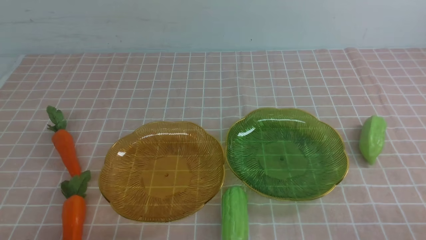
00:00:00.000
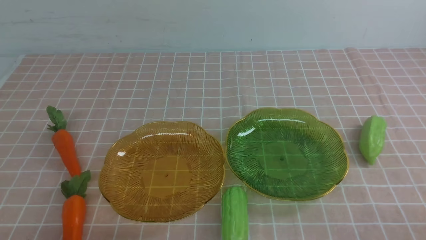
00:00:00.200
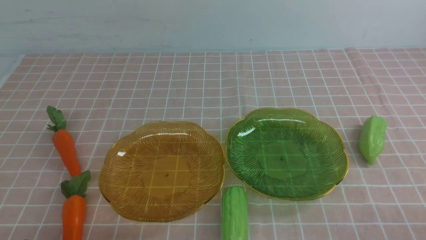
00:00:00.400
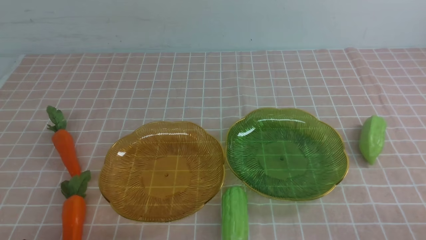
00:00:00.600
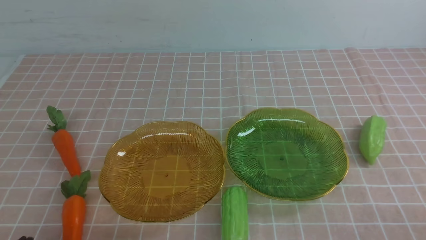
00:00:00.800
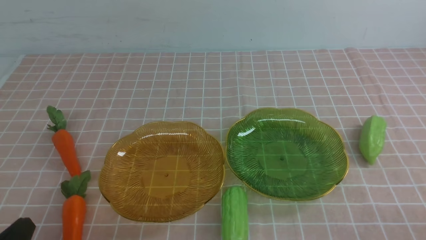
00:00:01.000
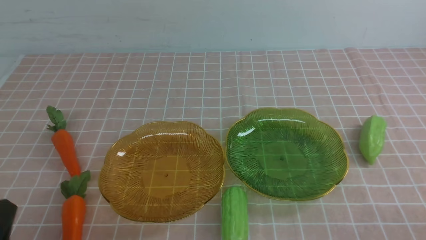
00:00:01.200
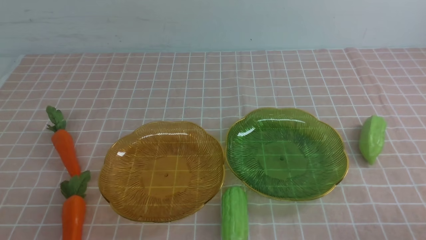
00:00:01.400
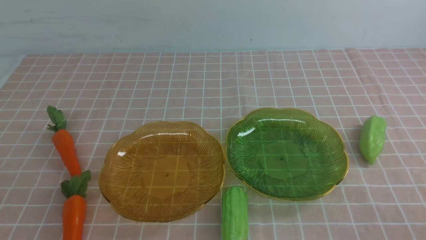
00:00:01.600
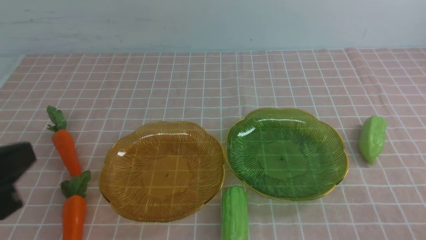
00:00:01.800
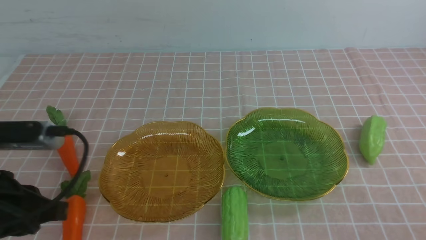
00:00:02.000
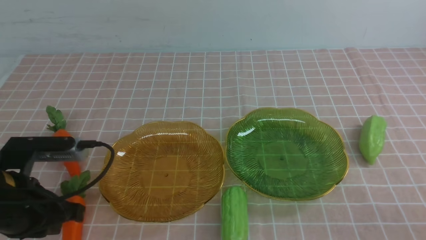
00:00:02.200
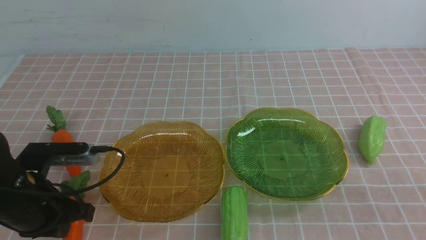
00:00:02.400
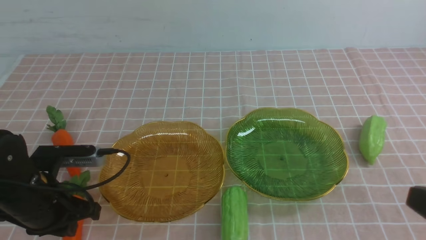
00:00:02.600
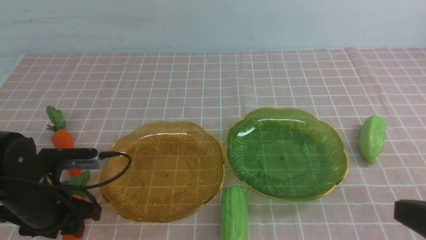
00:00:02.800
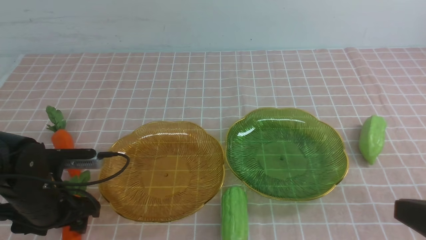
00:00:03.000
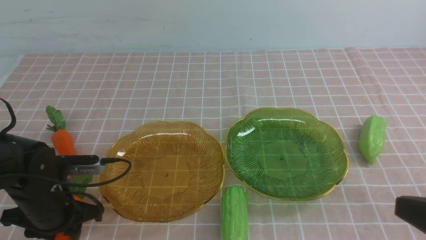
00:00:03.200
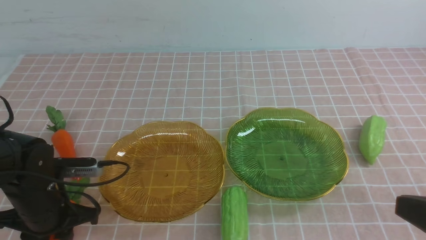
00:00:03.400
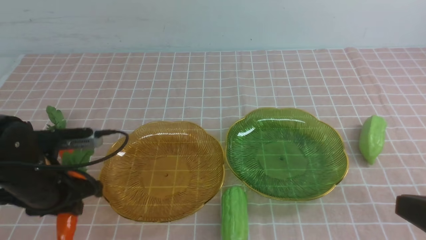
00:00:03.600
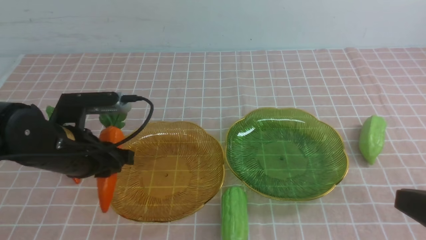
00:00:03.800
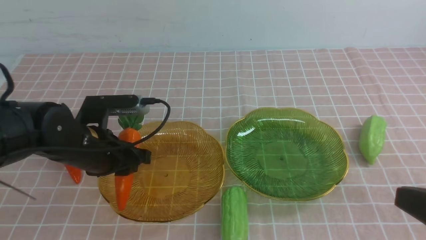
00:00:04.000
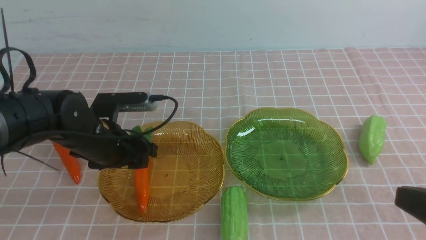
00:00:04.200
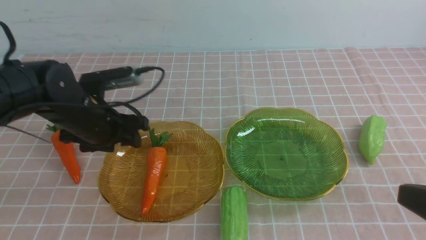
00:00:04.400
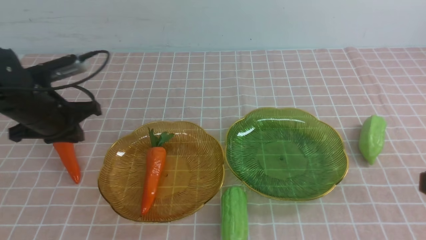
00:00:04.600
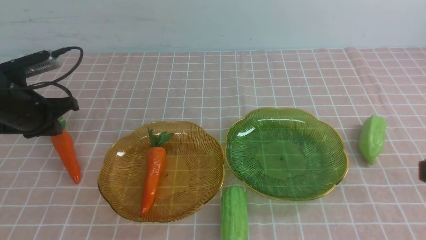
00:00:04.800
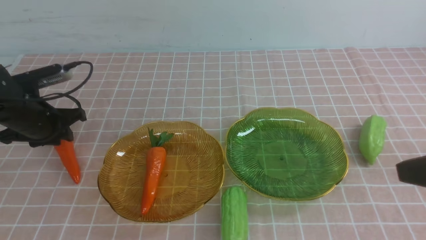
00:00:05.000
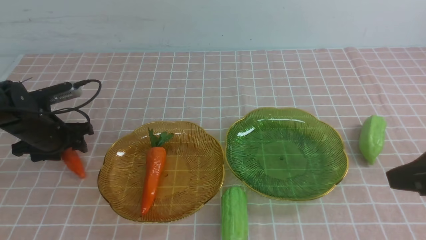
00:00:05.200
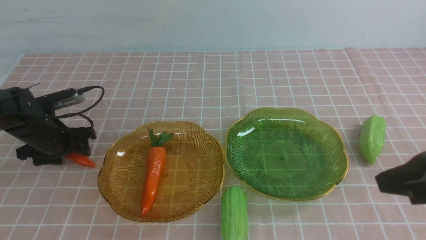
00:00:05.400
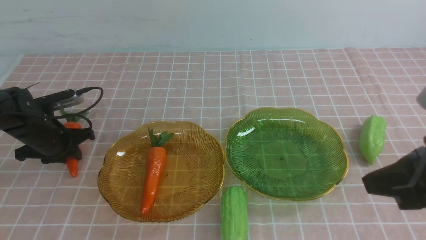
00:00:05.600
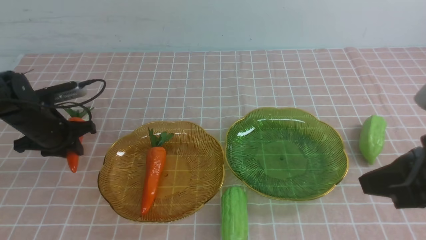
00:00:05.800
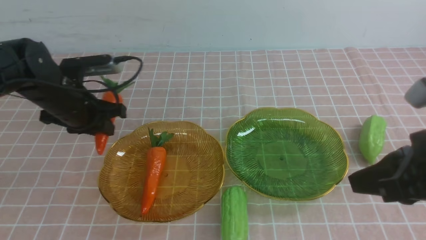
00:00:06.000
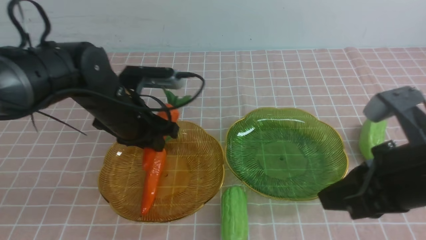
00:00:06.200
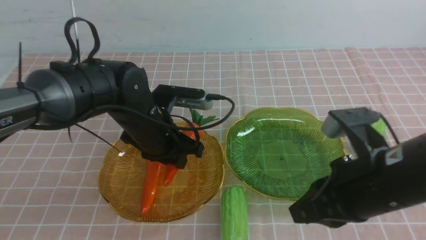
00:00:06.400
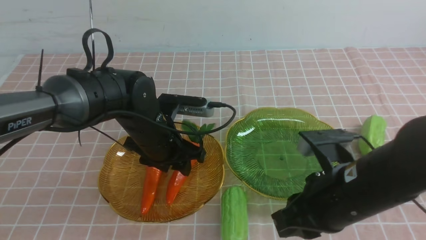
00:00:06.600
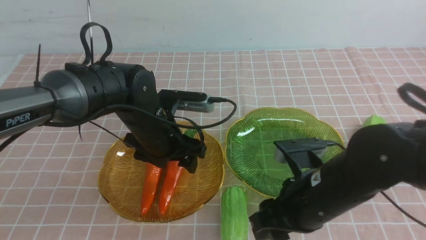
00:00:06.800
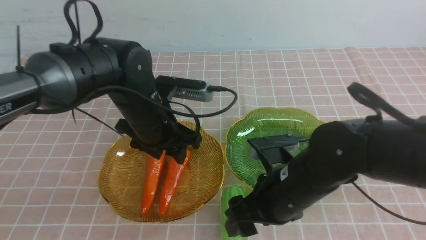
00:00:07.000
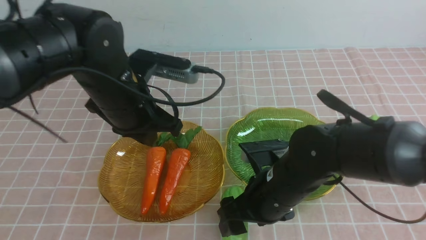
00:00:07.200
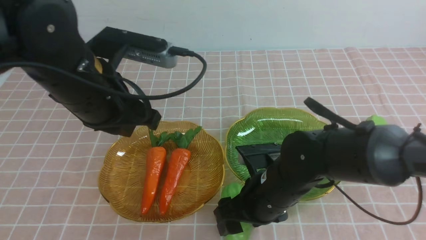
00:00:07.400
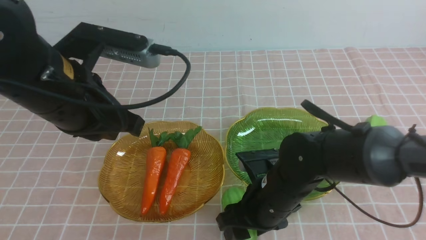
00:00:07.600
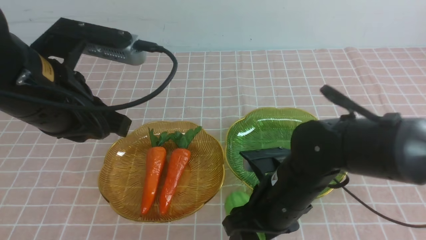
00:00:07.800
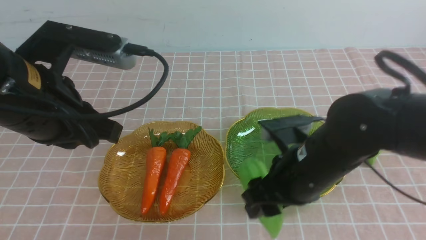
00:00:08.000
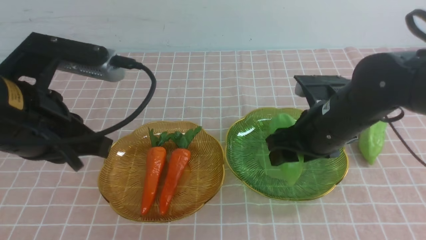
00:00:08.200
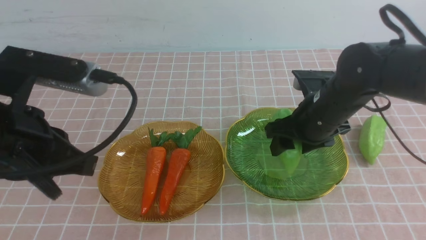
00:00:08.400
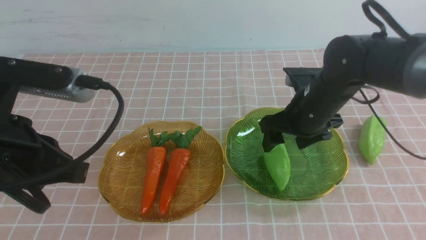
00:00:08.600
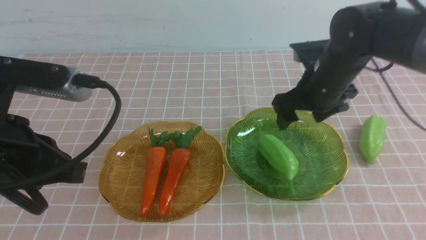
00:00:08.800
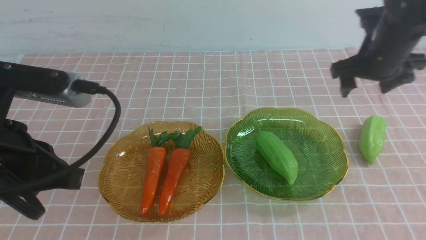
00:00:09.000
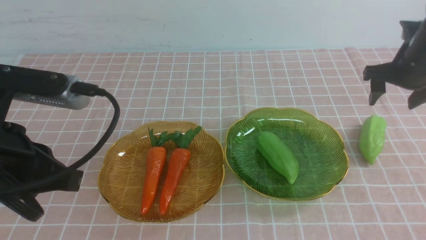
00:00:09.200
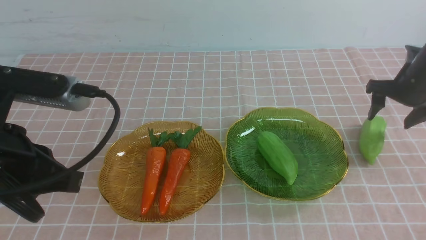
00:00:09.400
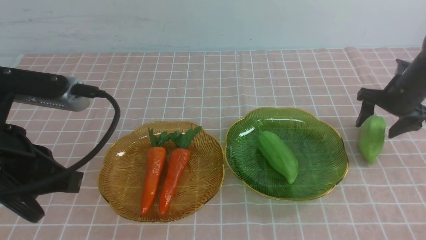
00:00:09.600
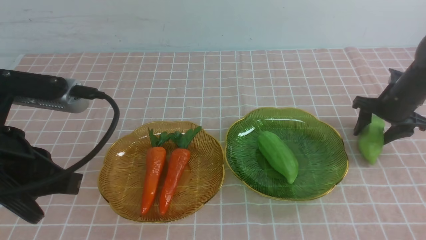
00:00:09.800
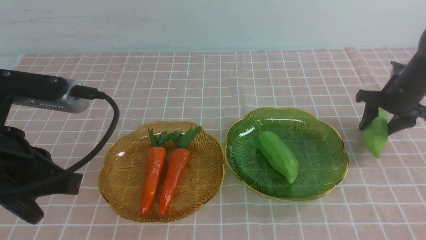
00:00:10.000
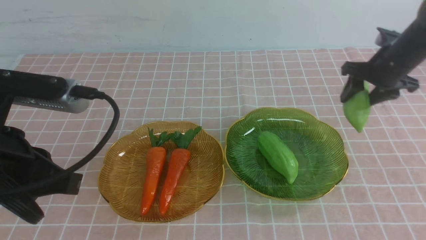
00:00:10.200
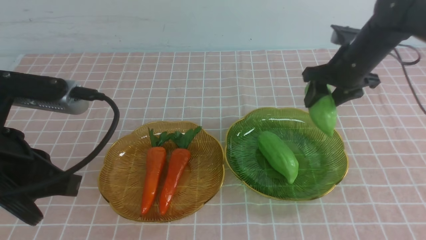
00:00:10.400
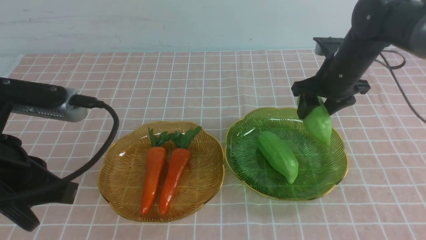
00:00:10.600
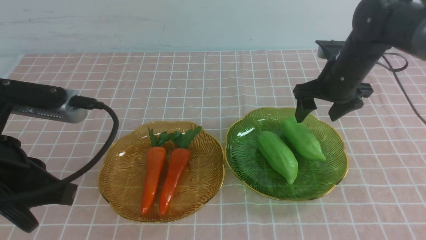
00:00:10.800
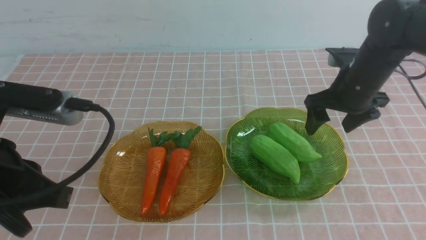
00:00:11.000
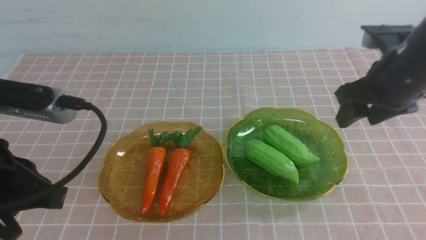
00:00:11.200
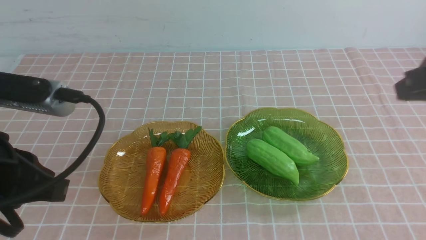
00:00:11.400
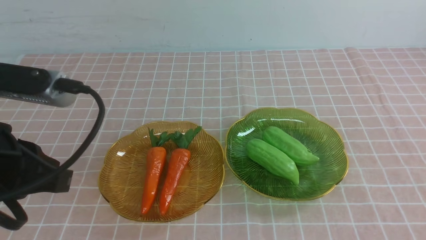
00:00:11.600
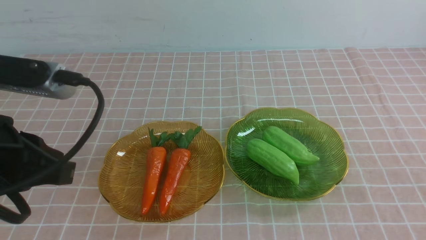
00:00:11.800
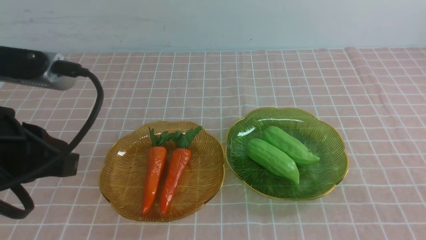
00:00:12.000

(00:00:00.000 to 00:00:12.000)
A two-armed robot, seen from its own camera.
Step, 00:00:00.000 - 00:00:06.600: use the left arm to grab a carrot and put it into the left plate.
Step, 00:00:06.800 - 00:00:10.600: use the right arm to grab a chayote and put it into the right plate.
00:00:01.600 - 00:00:03.000: The left gripper heads forward and downward, covering about 20 cm, and opens its fingers; the right gripper heads upward, covering approximately 10 cm.
00:00:03.000 - 00:00:04.400: The left gripper is displaced forward and upward by roughly 10 cm.
00:00:04.400 - 00:00:06.000: The left gripper goes to the left and returns, some 10 cm each way, and closes its fingers. Meanwhile the right gripper is displaced forward and to the left by about 10 cm.
00:00:06.000 - 00:00:07.600: The left gripper heads backward and upward, covering roughly 20 cm, and closes its fingers, while the right gripper travels to the left, downward and forward by approximately 15 cm, and opens up.
00:00:07.600 - 00:00:09.000: The right gripper travels to the right and forward by approximately 25 cm, while the left gripper heads backward, covering about 5 cm.
00:00:09.000 - 00:00:10.400: The right gripper is displaced to the left and backward by roughly 10 cm.
00:00:10.400 - 00:00:12.000: The right gripper moves backward, about 35 cm, and closes its fingers; the left gripper is displaced backward by roughly 10 cm.

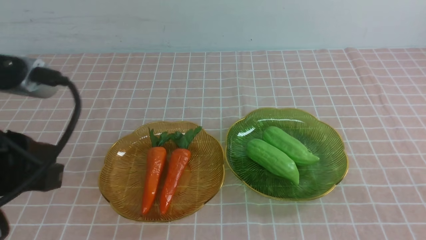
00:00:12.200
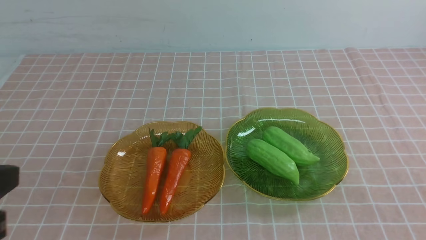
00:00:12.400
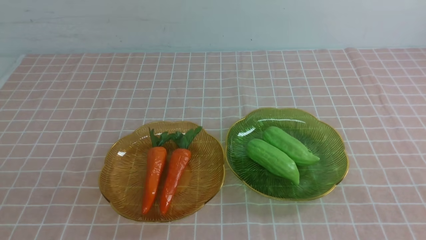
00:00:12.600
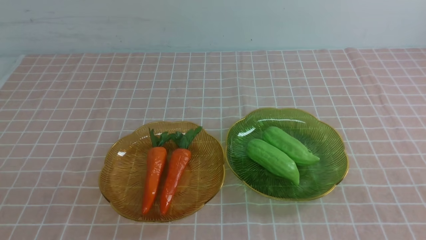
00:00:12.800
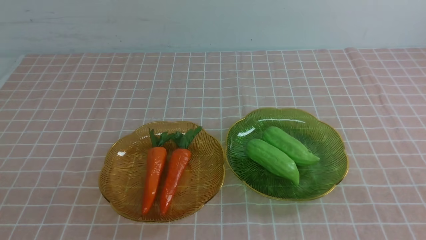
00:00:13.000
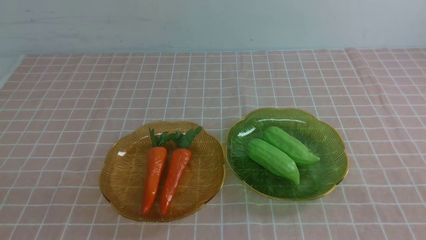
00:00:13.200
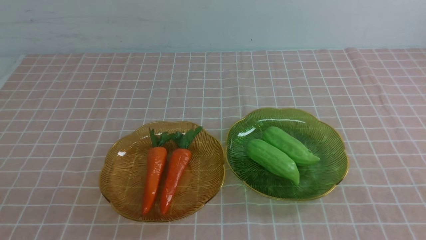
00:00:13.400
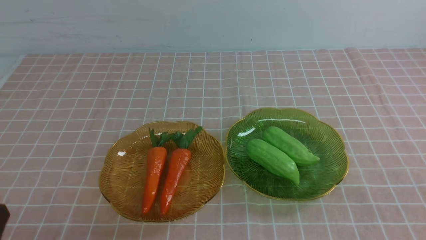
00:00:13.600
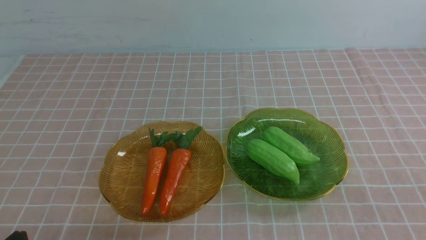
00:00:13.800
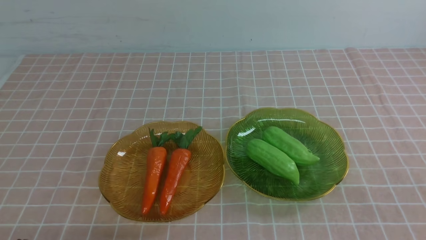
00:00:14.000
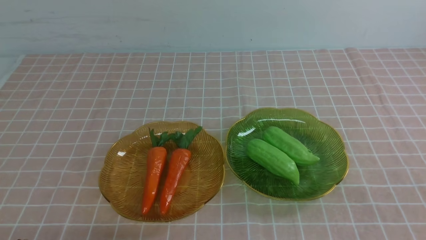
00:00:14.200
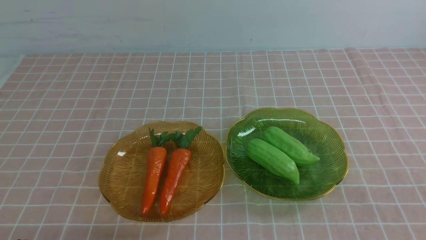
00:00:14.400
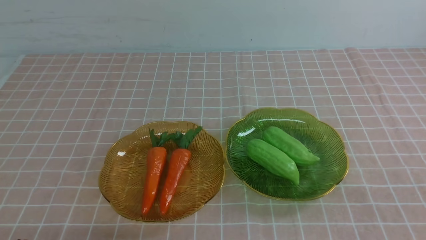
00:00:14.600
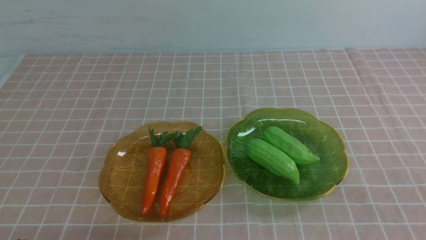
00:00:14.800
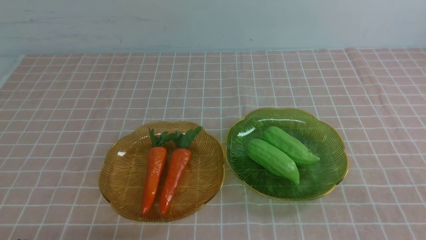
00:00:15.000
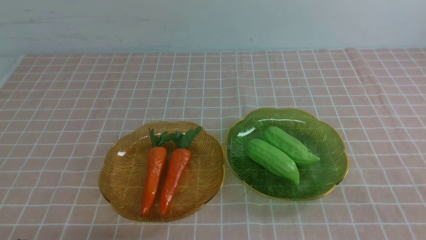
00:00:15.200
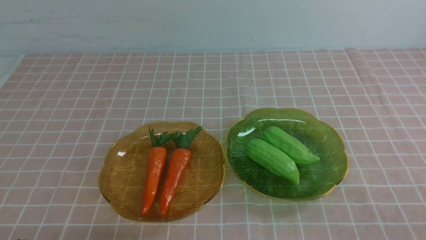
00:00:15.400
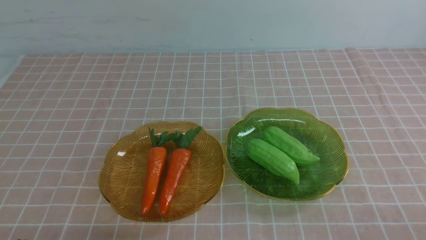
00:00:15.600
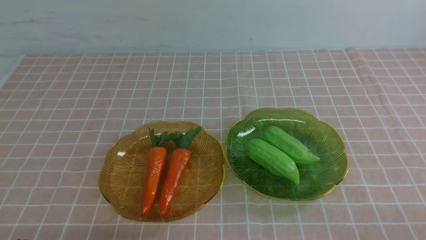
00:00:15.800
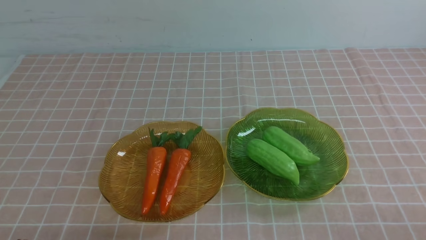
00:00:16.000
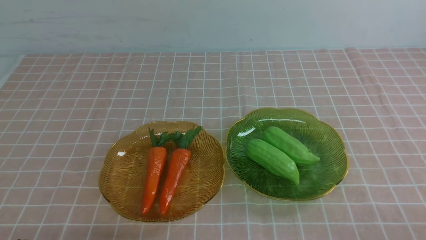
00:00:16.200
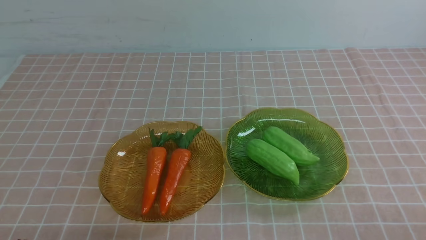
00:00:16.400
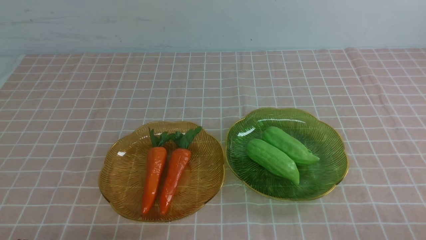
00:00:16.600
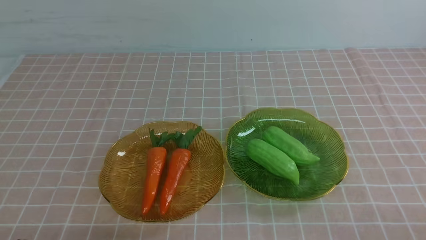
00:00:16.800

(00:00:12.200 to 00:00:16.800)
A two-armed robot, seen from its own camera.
00:00:12.200 - 00:00:13.800: The left gripper shifts roughly 15 cm downward.
00:00:15.200 - 00:00:16.800: Neither gripper changes place.
